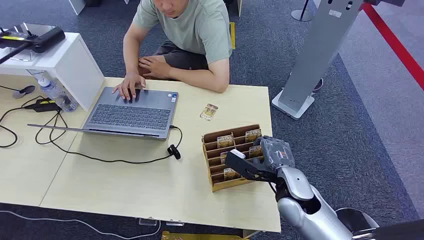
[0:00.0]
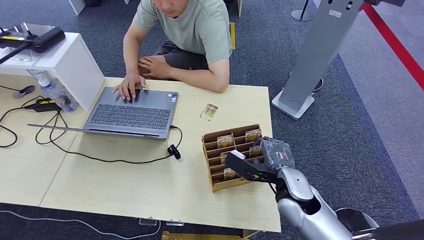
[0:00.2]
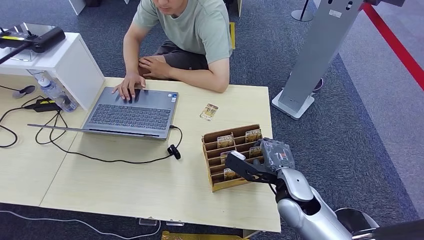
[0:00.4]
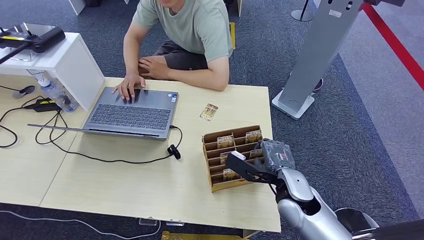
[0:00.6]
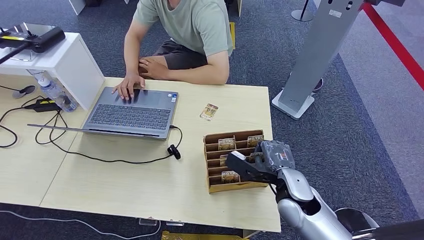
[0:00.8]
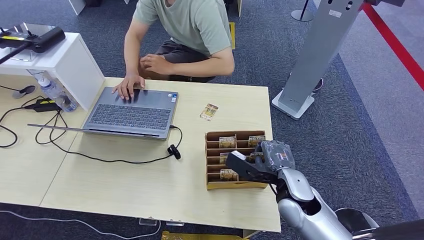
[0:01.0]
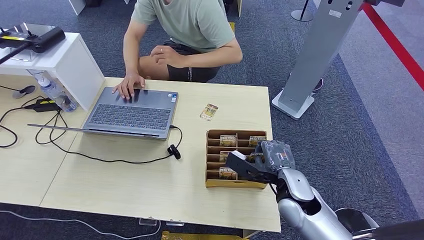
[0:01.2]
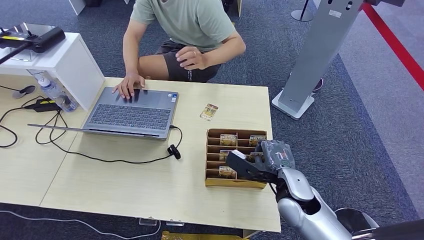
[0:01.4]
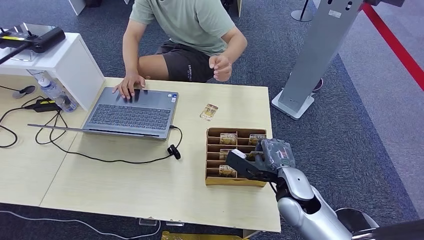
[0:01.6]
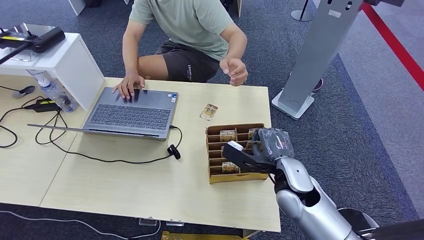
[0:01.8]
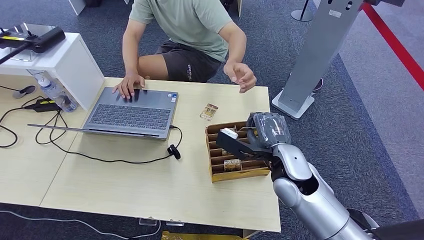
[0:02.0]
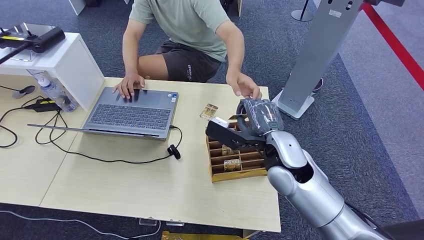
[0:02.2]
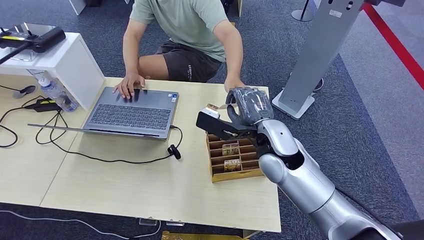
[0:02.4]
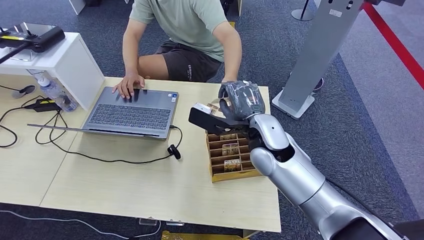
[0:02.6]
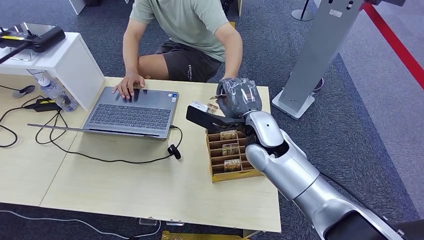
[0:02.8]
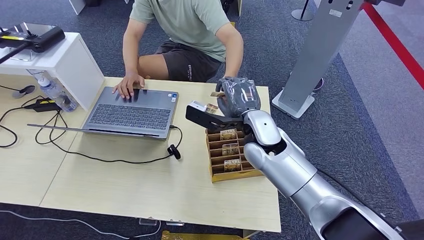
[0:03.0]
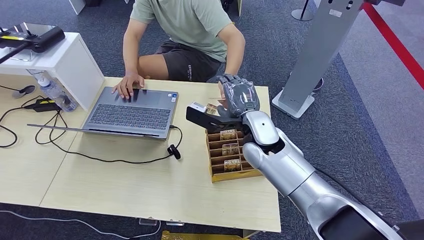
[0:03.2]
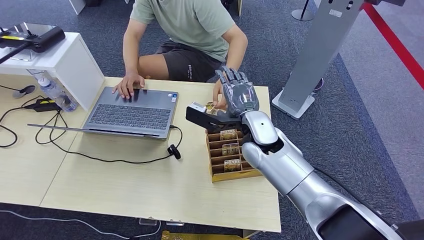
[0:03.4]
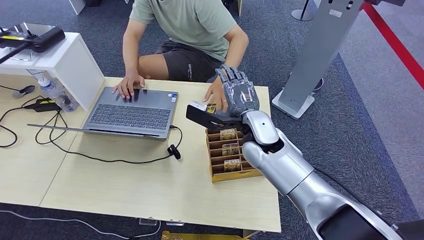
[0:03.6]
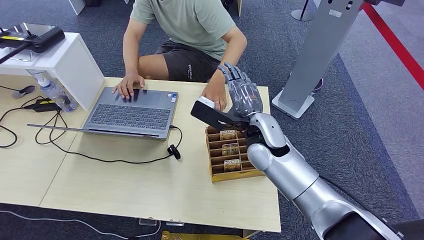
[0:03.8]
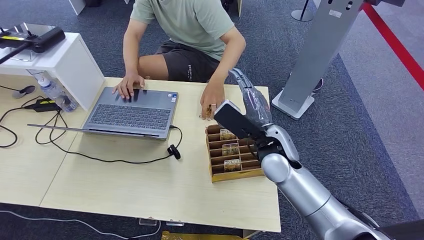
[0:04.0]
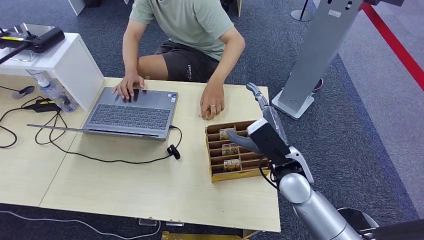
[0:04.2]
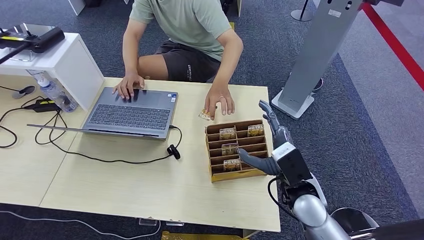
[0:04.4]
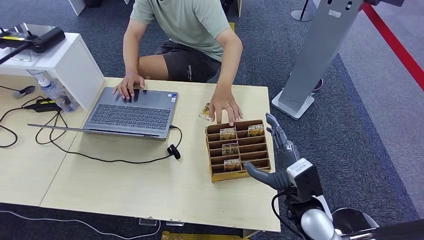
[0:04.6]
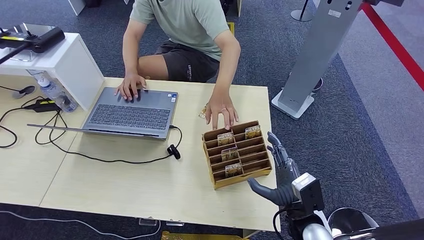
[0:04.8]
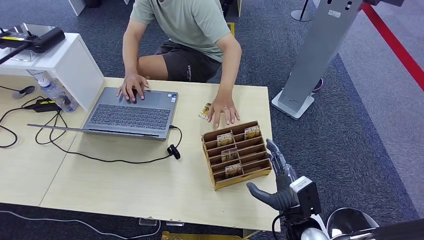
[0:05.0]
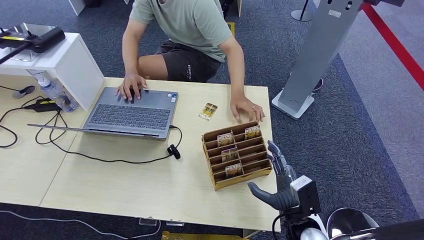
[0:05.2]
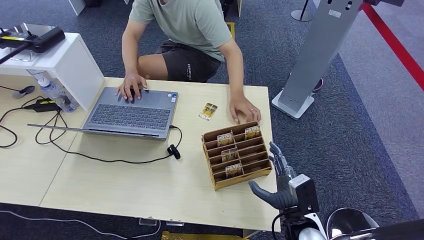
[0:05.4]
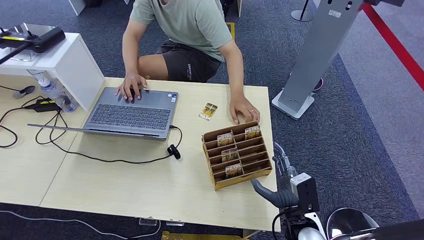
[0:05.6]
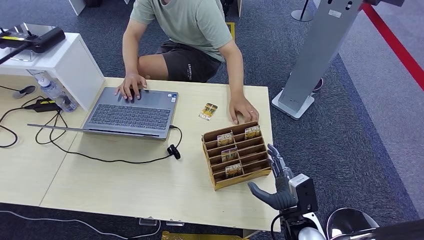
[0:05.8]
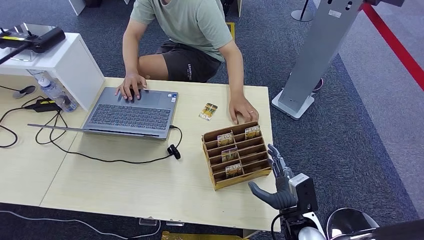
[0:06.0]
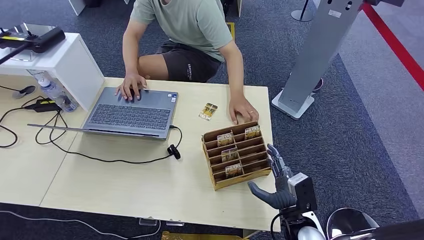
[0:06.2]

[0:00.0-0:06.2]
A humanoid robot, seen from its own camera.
Step, 0:00.0 to 0:02.0: Pick up the key card from the card box.
Step, 0:02.4 to 0:06.0: Hand the key card to the target.
0:01.6 to 0:03.2: The right hand heads to the left, upward and forward, covering approximately 15 cm.
0:03.2 to 0:04.6: The right hand shifts about 20 cm to the right, backward and downward.
0:04.6 to 0:06.2: The right hand goes some 10 cm downward.
